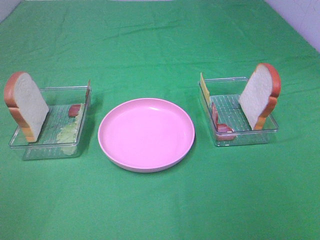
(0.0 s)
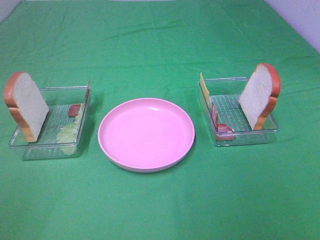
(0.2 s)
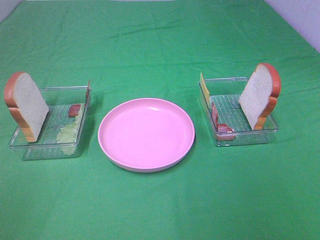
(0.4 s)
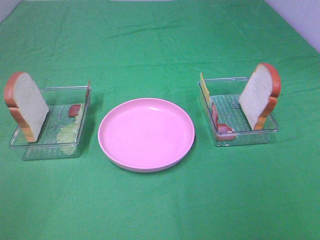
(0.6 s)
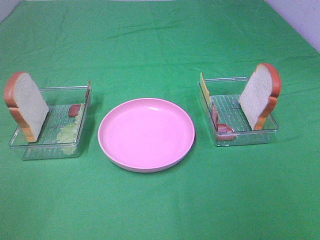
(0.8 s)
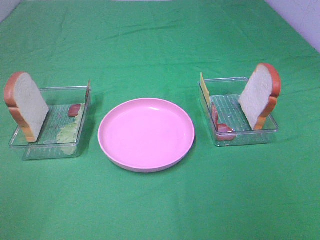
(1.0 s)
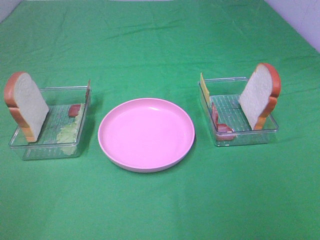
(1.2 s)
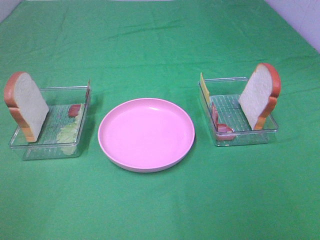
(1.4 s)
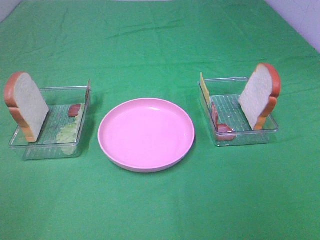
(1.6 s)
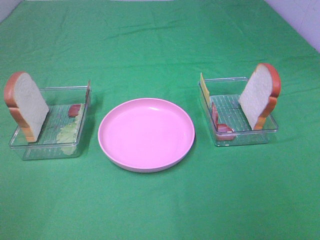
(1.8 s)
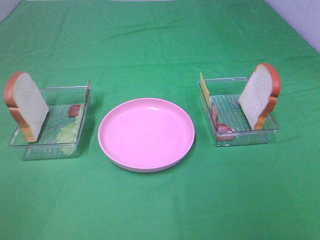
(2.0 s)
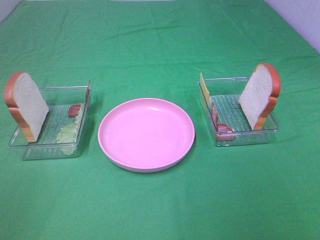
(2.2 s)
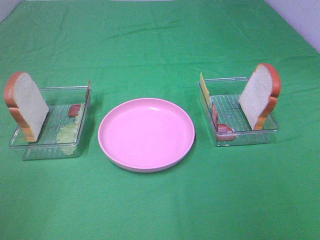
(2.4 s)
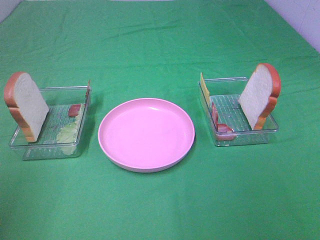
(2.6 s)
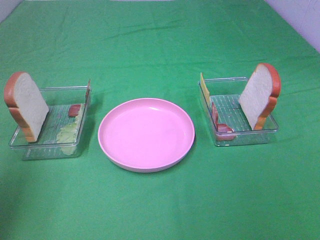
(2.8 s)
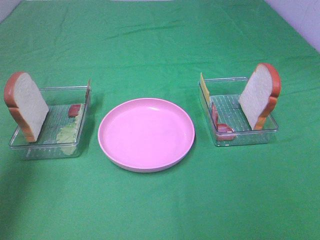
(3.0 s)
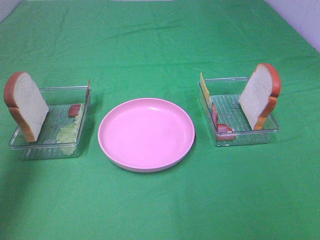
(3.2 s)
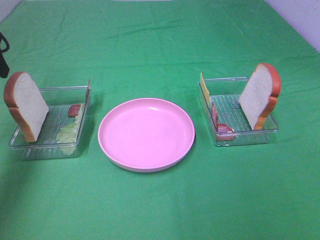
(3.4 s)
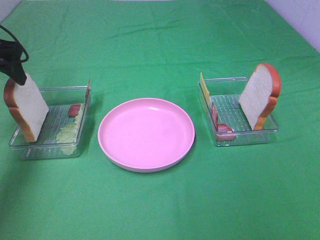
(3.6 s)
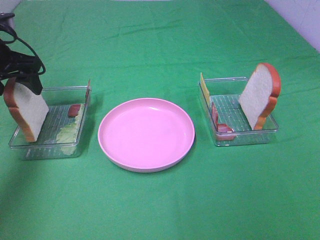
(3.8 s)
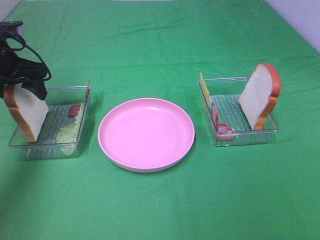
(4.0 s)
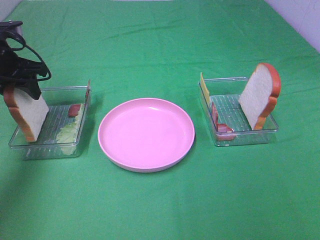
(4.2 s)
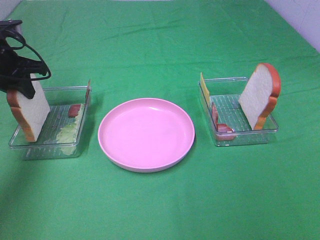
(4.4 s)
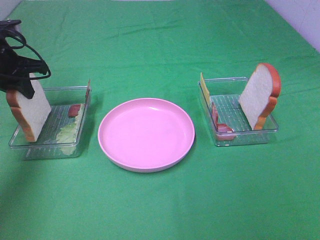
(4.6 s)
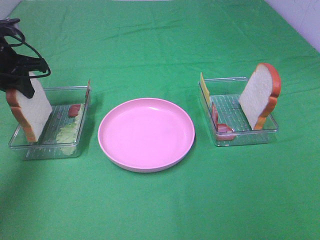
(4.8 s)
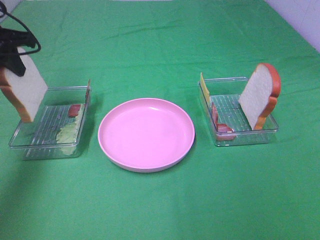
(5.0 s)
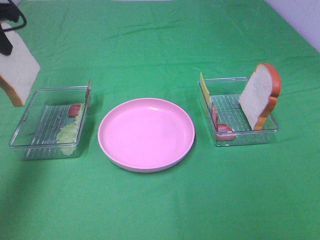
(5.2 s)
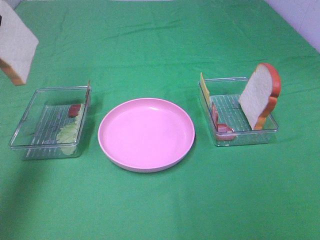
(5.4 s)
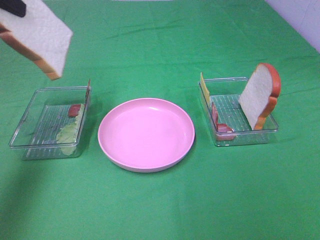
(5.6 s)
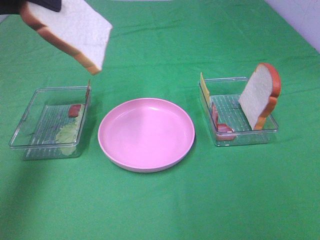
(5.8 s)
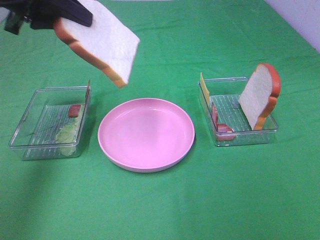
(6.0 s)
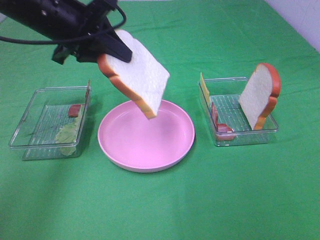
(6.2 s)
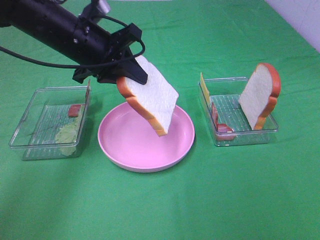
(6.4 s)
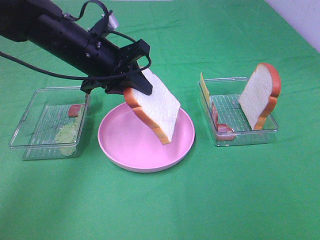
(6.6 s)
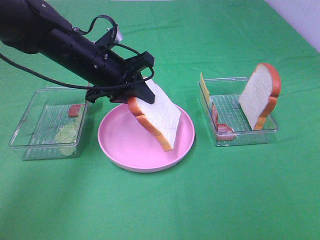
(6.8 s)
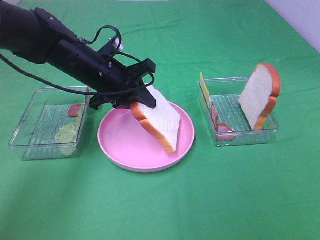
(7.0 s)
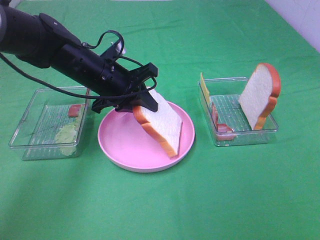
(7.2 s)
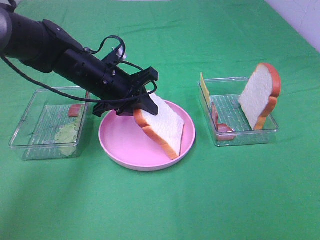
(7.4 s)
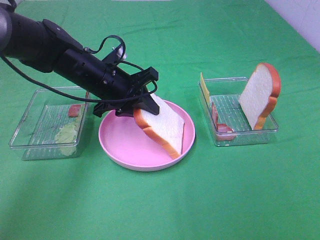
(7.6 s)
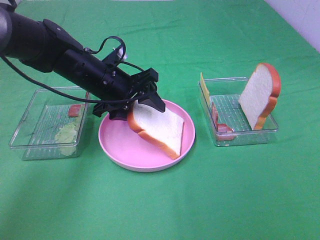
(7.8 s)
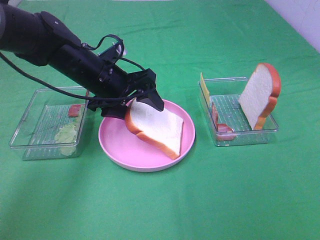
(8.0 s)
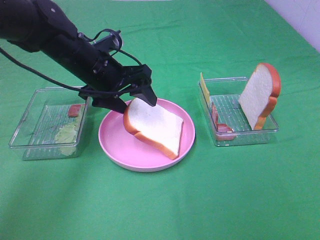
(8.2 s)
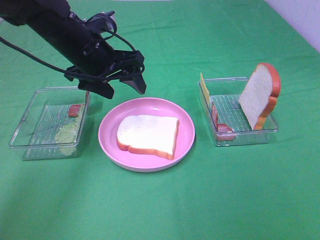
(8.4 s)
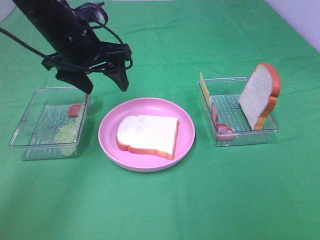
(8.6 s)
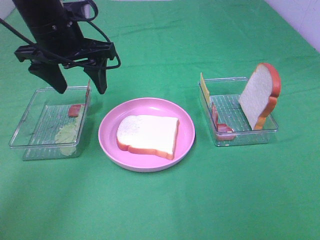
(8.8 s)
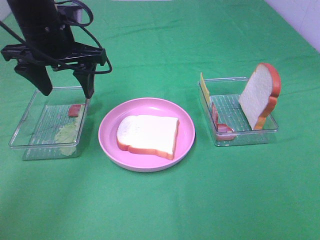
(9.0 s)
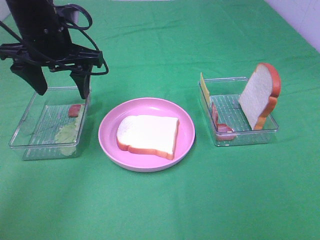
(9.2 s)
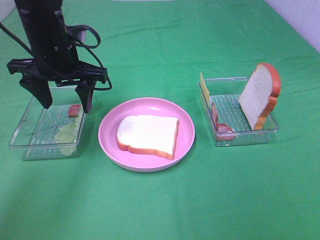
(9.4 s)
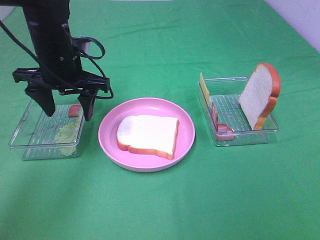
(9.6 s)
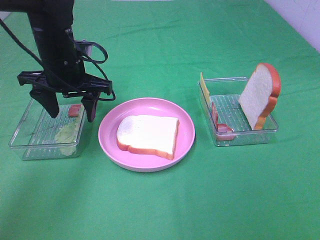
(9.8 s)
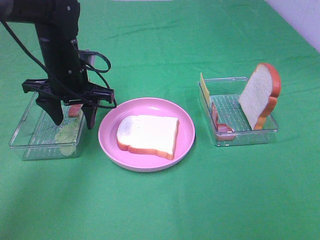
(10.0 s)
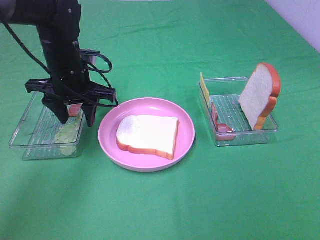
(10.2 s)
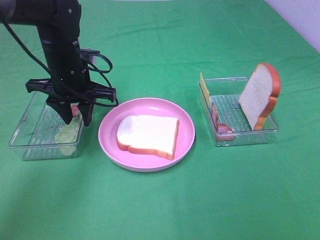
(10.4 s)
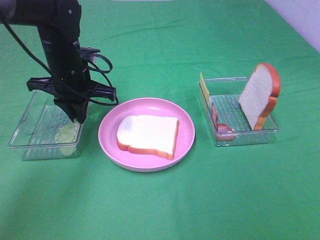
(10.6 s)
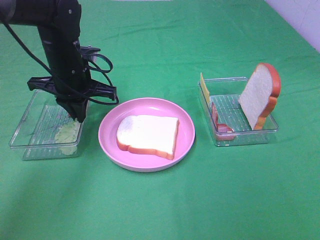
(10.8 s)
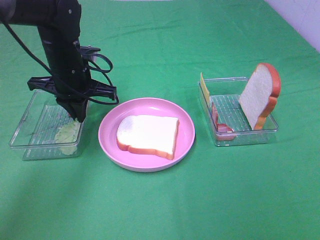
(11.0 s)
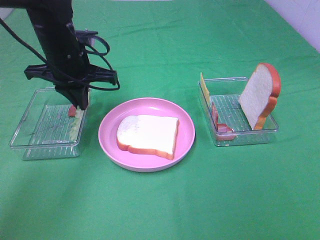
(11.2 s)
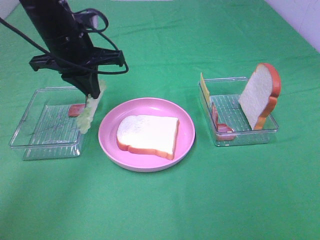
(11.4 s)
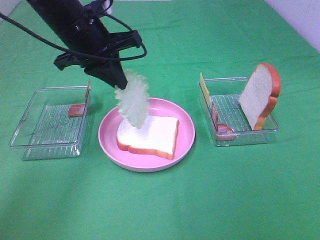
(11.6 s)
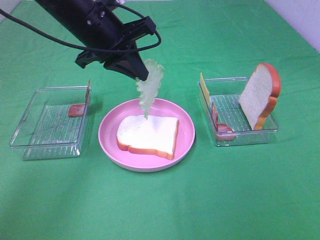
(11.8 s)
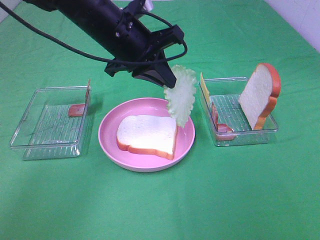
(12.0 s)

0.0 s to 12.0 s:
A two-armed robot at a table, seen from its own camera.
Task of the whole recording: Make sandwiches.
Step, 0.0 to 4.4 s: Left hand:grab the bread slice.
Step, 4.6 to 8.4 s: Left hand:place the bread slice on the plate.
Step, 8.6 to 11.0 s: Left hand:grab the lettuce slice.
0.0 to 1.6 s: Neither gripper changes place.
1.6 to 3.0 s: The left gripper travels forward by about 25 cm.
3.0 to 4.4 s: The left gripper moves forward and downward, roughly 20 cm, and closes up.
4.4 to 6.0 s: The left gripper goes roughly 15 cm upward, to the right and backward.
6.0 to 7.6 s: The left gripper moves downward and to the right, some 20 cm.
7.6 to 9.0 s: The left gripper travels upward and to the left by some 10 cm, and opens.
9.0 to 10.4 s: The left gripper shifts about 10 cm downward, and closes.
10.4 to 12.0 s: The left gripper travels to the right and upward by about 10 cm, and closes.

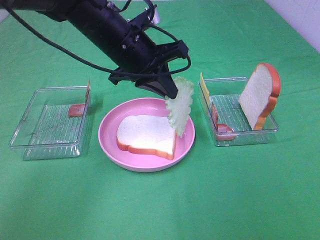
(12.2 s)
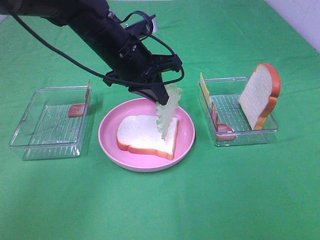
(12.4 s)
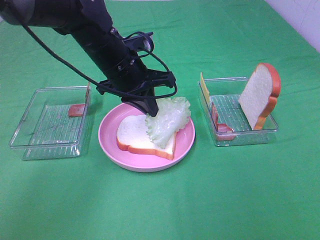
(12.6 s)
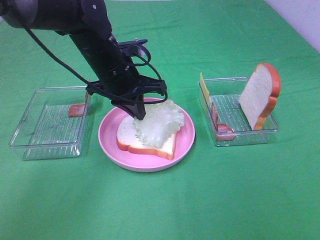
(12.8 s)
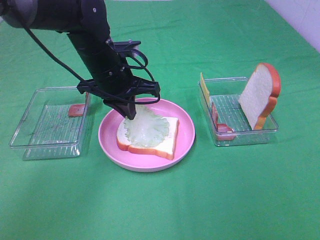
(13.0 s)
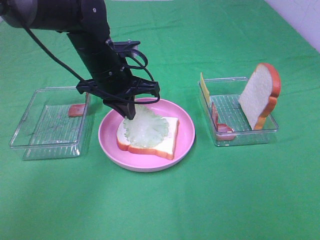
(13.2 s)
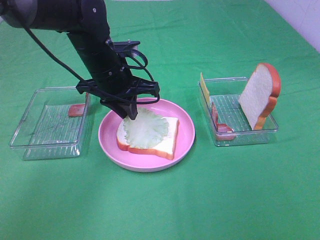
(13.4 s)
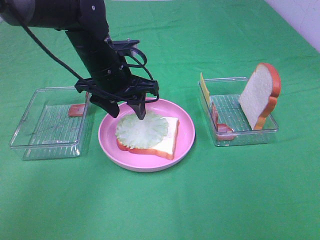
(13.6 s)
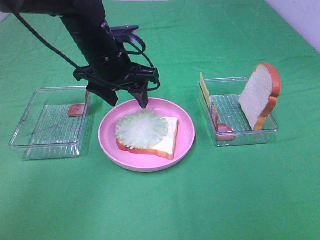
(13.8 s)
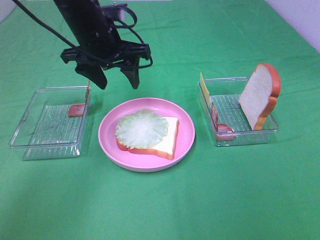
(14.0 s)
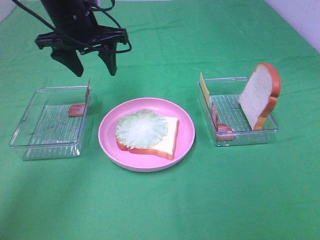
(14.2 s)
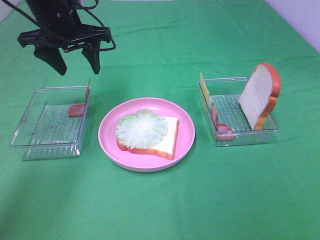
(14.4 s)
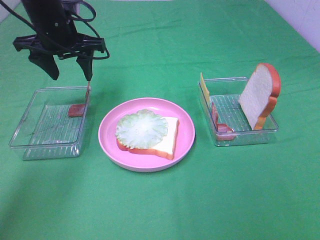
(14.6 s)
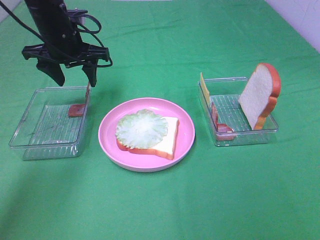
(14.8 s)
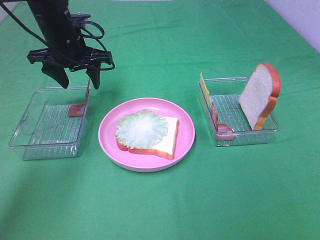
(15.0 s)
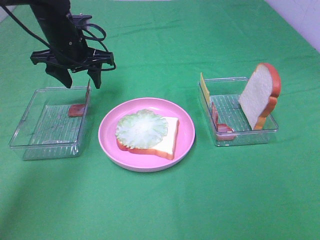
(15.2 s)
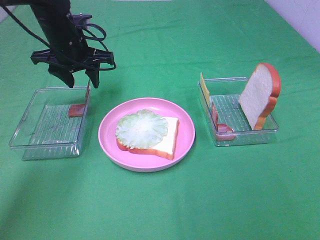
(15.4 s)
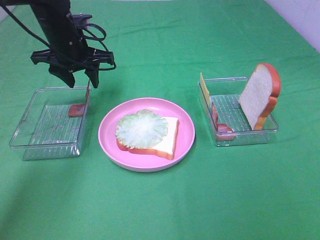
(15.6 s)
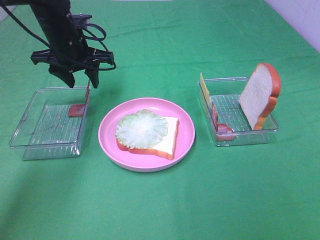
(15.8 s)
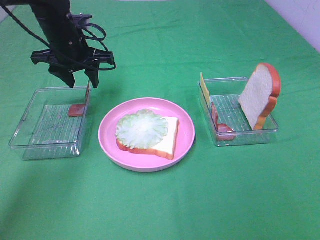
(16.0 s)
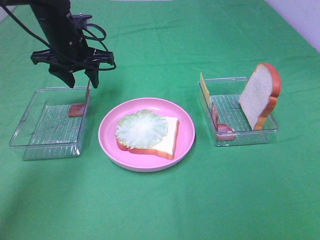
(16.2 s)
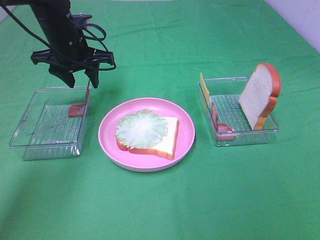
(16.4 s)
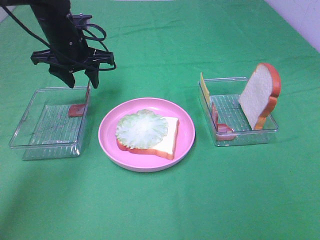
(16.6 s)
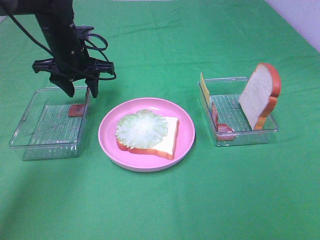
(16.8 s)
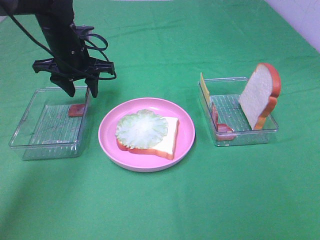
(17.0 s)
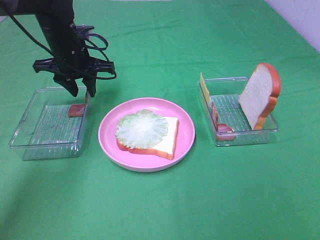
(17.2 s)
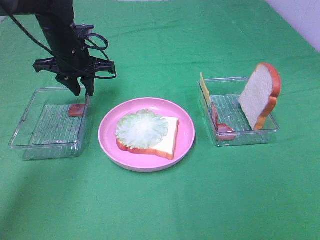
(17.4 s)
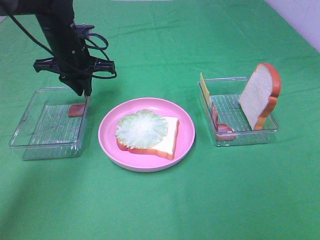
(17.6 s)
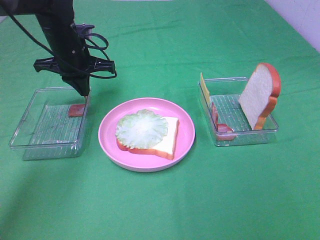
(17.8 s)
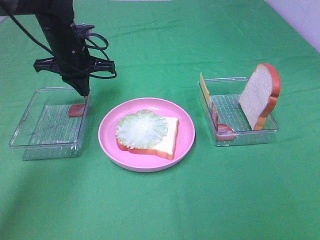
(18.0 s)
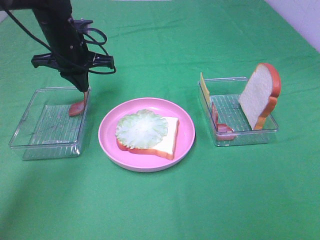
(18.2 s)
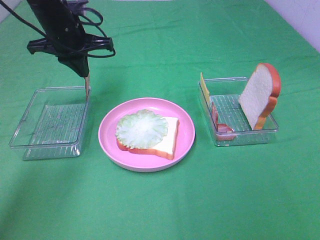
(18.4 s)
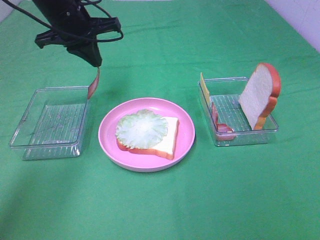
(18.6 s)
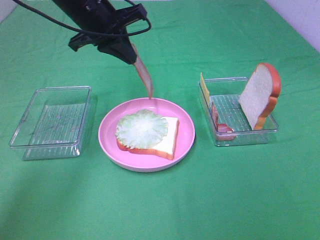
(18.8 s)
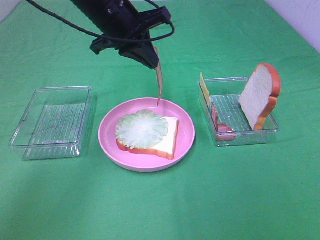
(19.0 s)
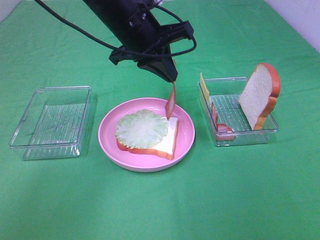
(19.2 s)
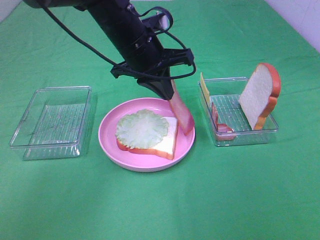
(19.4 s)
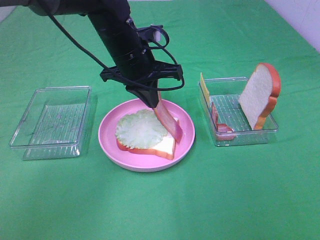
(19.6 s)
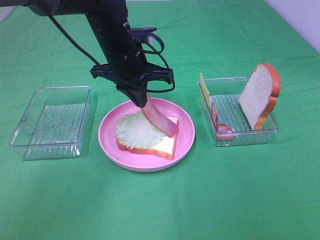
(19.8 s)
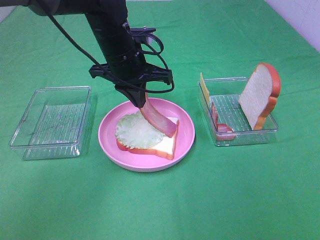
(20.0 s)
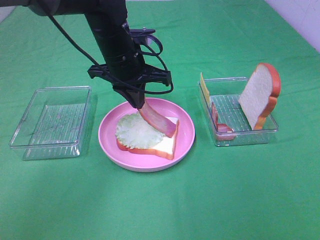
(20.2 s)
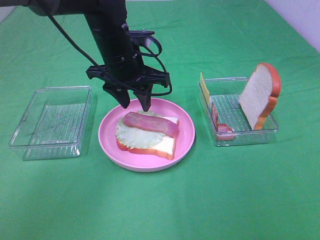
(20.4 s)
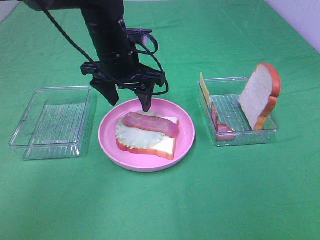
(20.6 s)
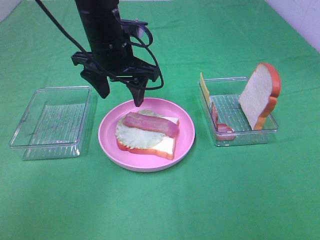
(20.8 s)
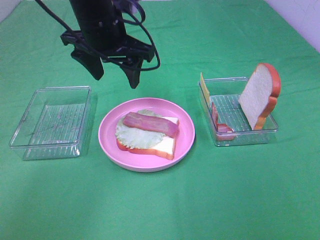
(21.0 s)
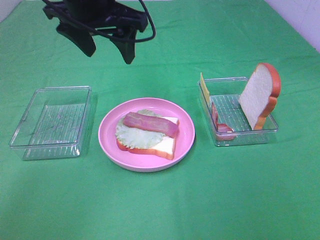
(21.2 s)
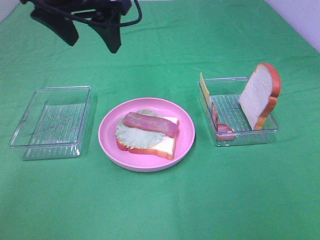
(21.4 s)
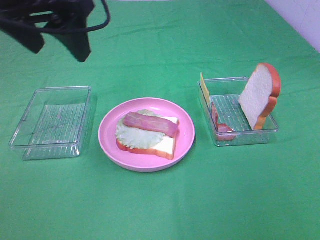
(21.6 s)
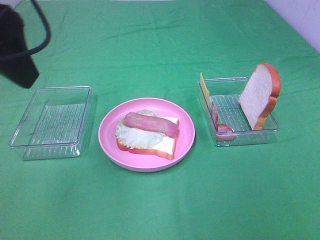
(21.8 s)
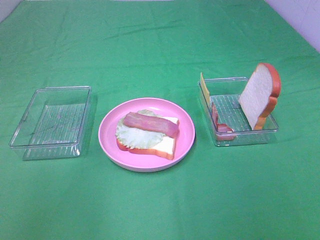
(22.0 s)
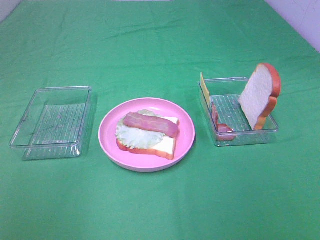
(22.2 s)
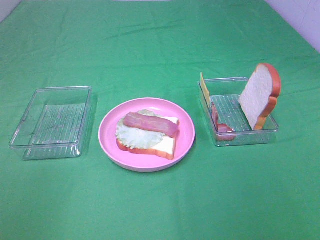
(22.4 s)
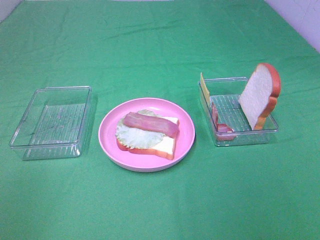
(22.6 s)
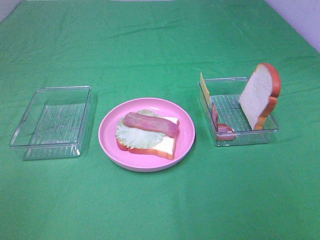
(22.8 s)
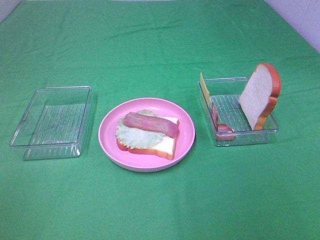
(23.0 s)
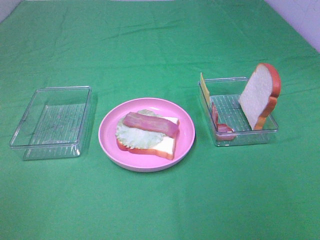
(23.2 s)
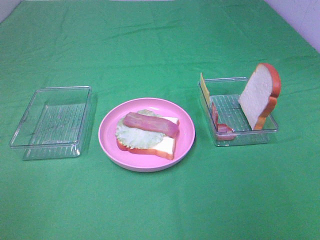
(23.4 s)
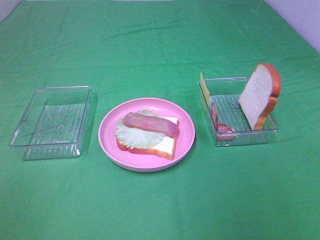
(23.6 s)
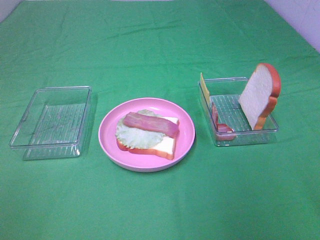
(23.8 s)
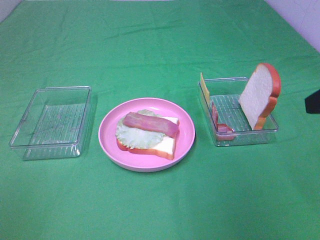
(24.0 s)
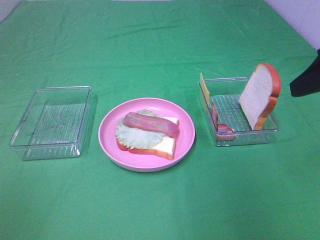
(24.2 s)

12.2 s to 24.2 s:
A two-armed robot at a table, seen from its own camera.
Task of the whole recording: Make sandwiches.
Step, 12.2 to 13.6 s: Left hand:place the lettuce slice on the bread slice.
Step, 13.8 to 18.0 s: Left hand:grab the bacon.
Step, 18.2 to 20.4 s: Left hand:place bacon on lettuce slice.
12.2 to 13.8 s: The left gripper opens up.
13.8 to 15.2 s: The left gripper is displaced to the left and forward by some 10 cm.
15.2 to 16.6 s: Both grippers stay about where they are.
16.6 to 18.2 s: The left gripper closes.
18.2 to 19.8 s: The left gripper moves to the right and backward, roughly 10 cm.
19.8 to 21.2 s: The left gripper travels upward by some 10 cm, and opens up.
21.2 to 22.6 s: The left gripper moves backward and to the left, about 40 cm.
22.6 to 24.2 s: The right gripper is displaced forward by about 25 cm.
